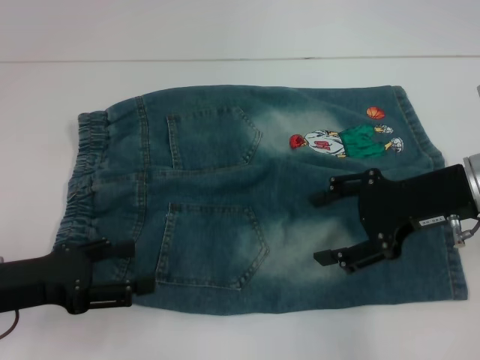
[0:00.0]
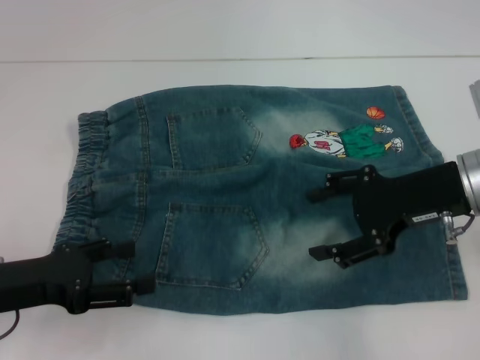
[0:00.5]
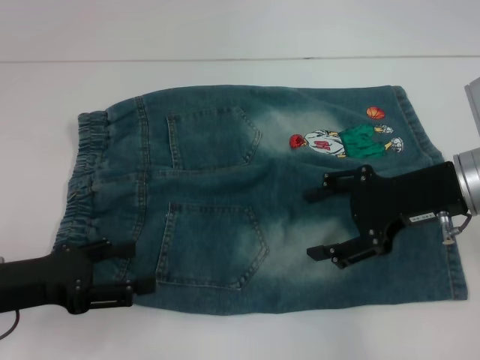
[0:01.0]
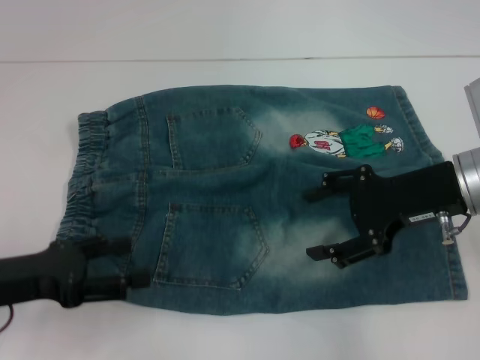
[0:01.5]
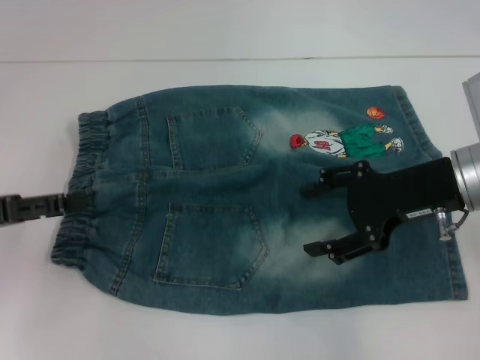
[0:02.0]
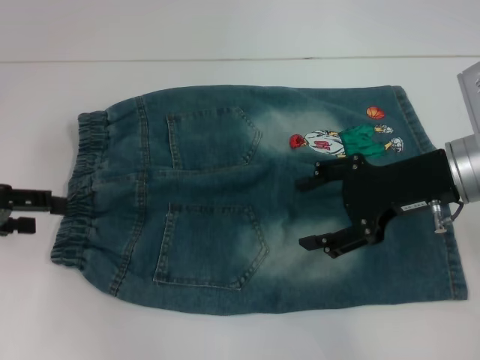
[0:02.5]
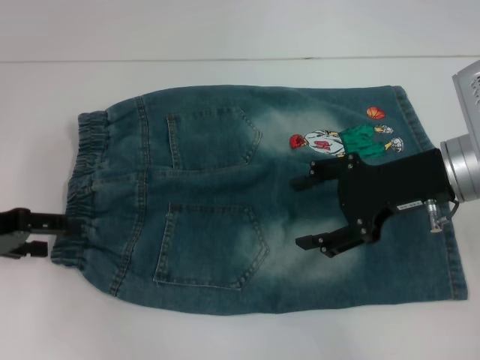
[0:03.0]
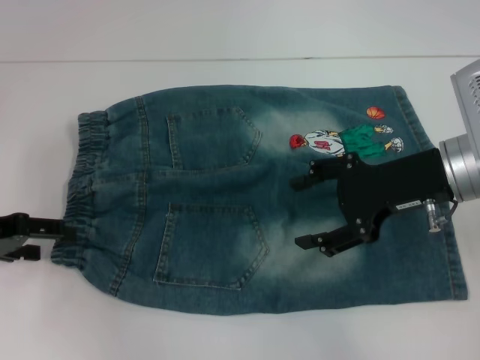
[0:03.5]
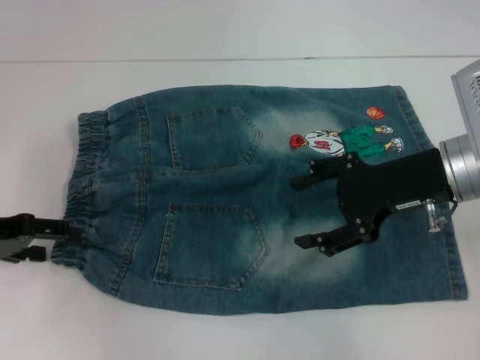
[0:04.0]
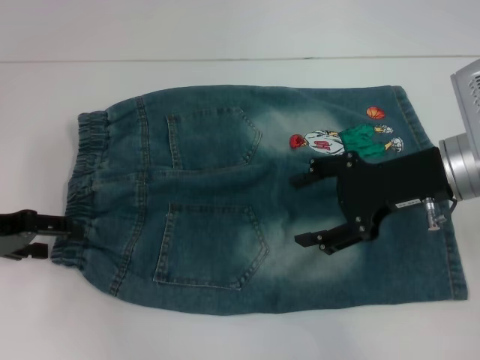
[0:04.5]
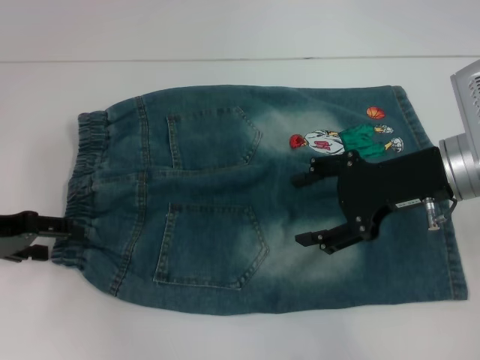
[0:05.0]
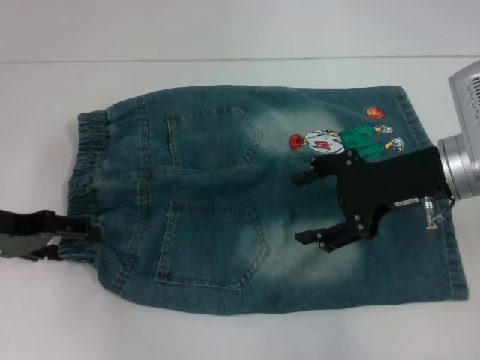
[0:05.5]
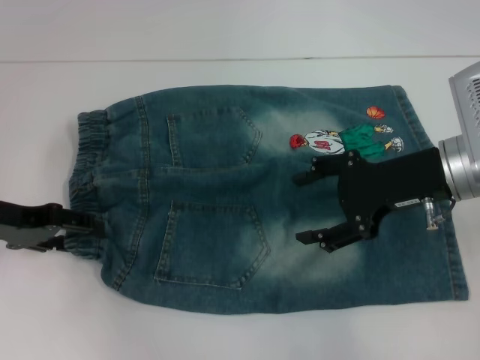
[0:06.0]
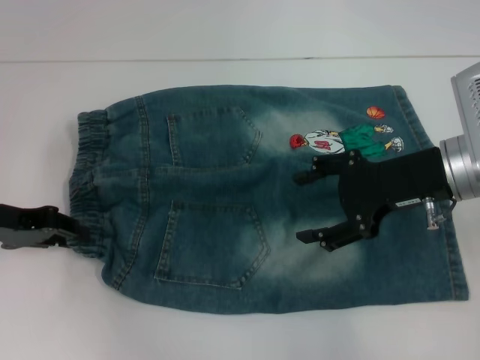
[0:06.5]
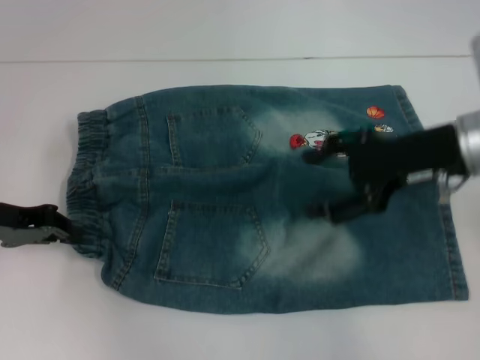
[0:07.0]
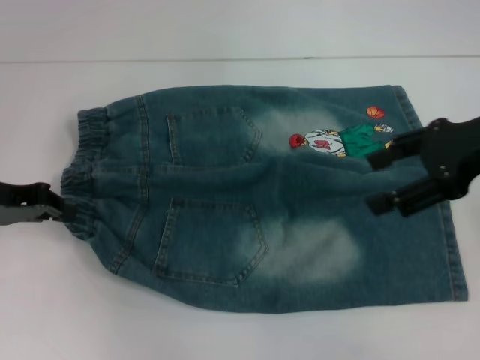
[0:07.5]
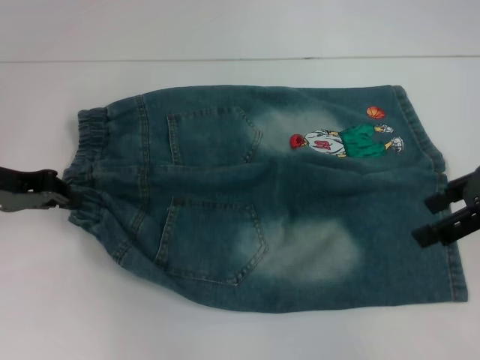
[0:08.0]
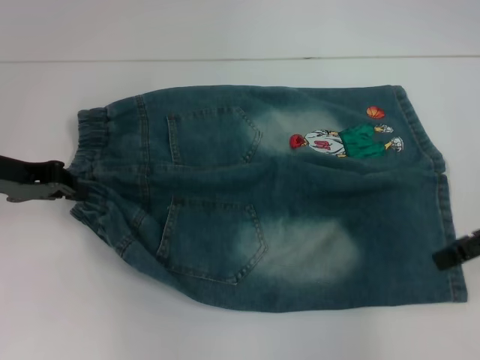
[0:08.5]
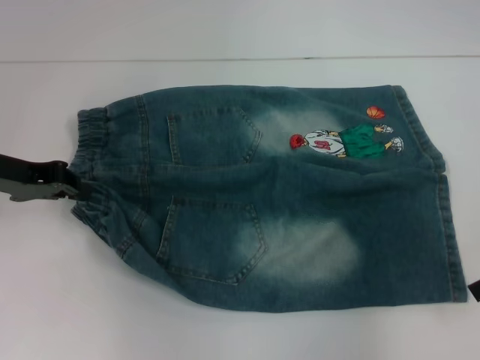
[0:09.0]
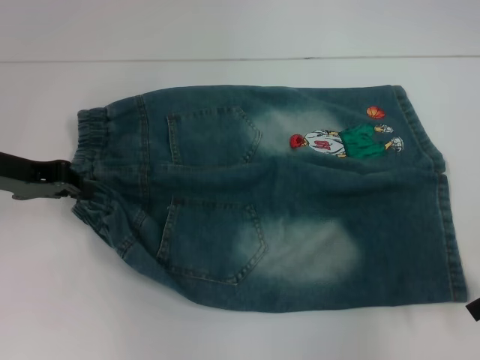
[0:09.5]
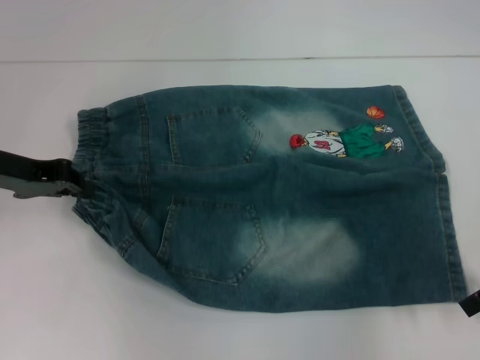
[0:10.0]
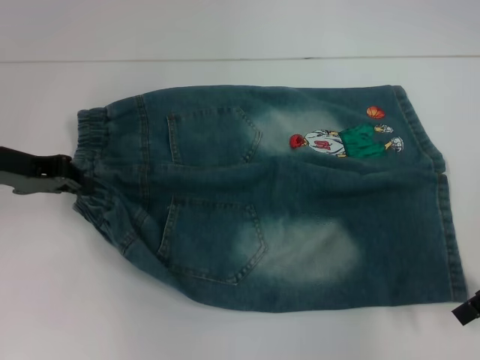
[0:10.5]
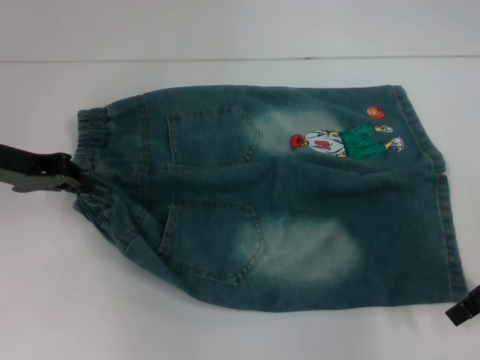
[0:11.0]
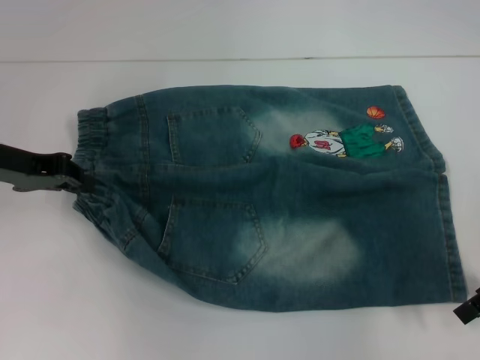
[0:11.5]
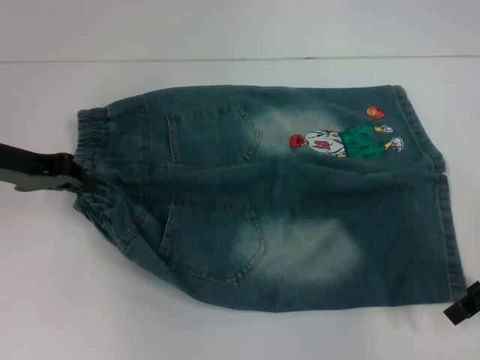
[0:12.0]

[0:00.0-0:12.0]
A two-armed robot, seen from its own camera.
Step, 0:00.0 to 0:07.0: Hold the lower left waistband with your left hand.
0:00.0 to 0:02.0: The left gripper goes approximately 5 cm to the left.
0:04.0 to 0:06.0: The grippers make only small movements.
0:06.0 to 0:08.0: The right gripper is displaced to the right and upward by roughly 10 cm. Meanwhile the left gripper closes up.
0:08.0 to 0:10.0: The right gripper goes approximately 5 cm downward.
0:10.0 to 0:12.0: The grippers move only a little.

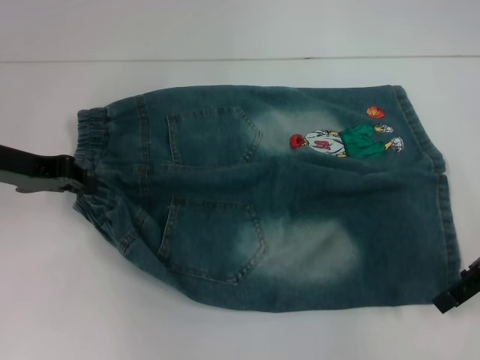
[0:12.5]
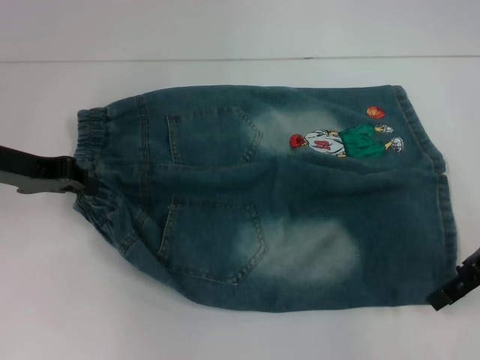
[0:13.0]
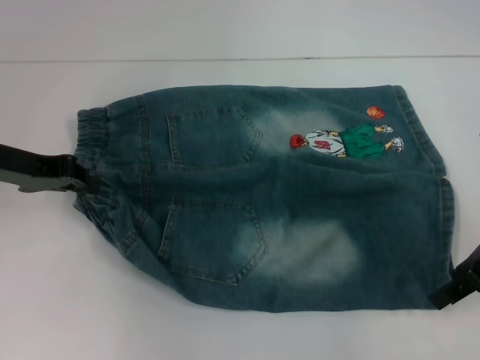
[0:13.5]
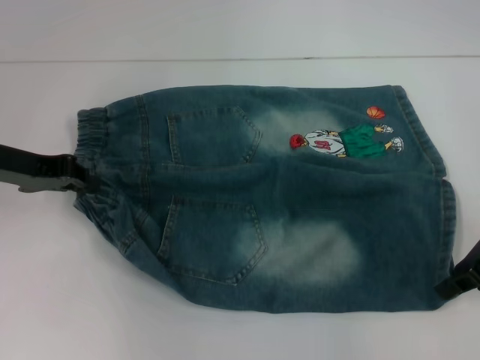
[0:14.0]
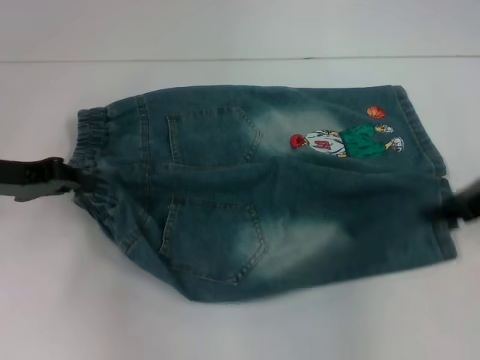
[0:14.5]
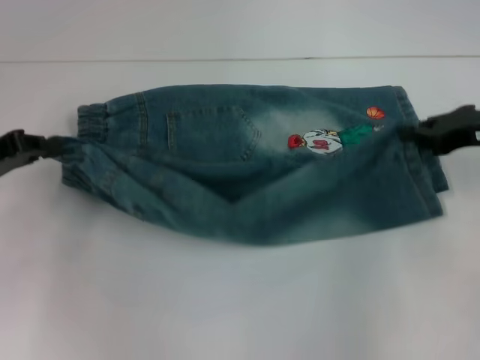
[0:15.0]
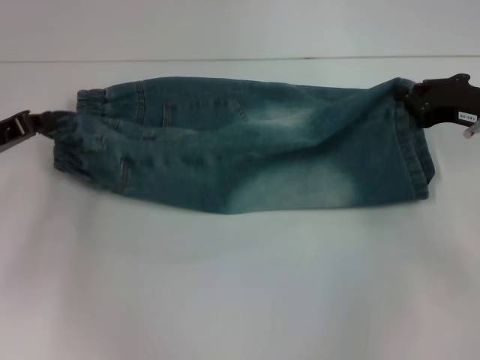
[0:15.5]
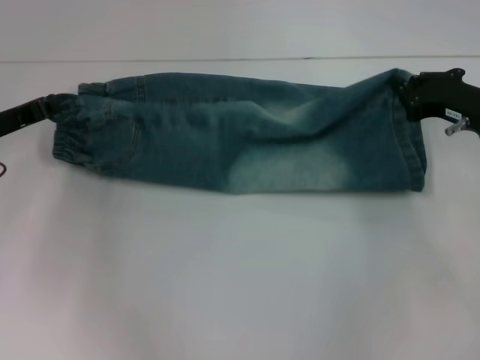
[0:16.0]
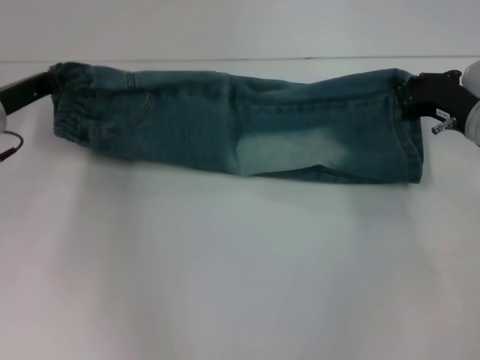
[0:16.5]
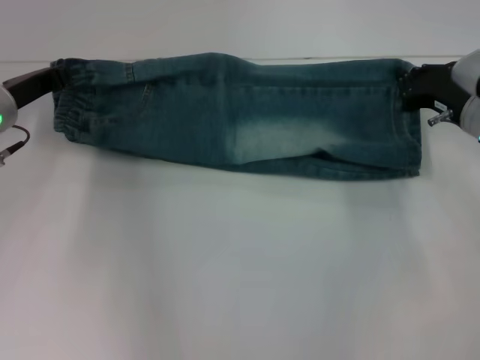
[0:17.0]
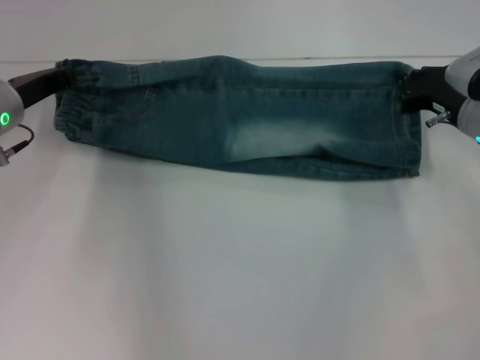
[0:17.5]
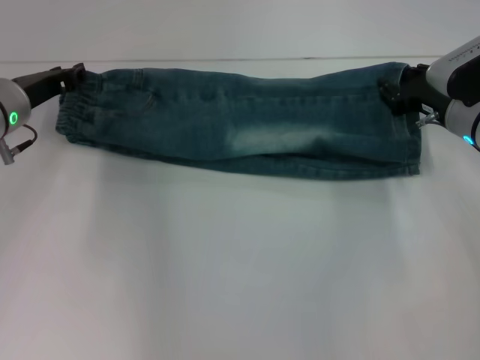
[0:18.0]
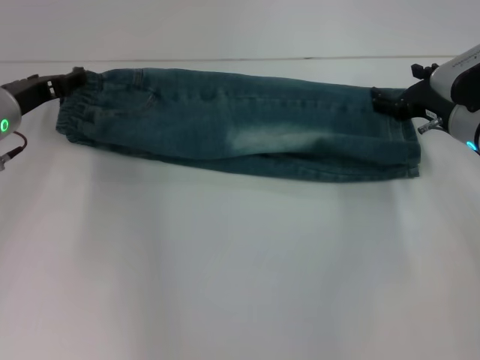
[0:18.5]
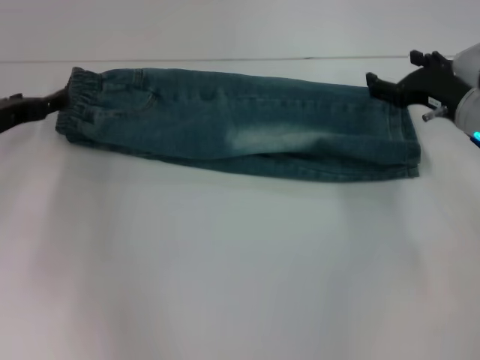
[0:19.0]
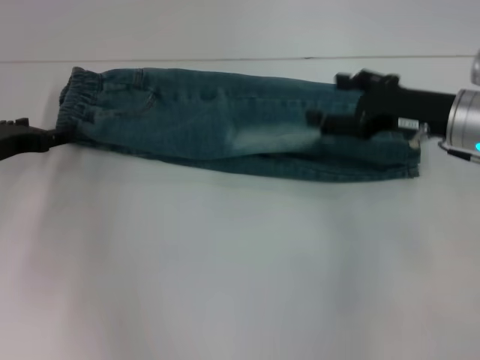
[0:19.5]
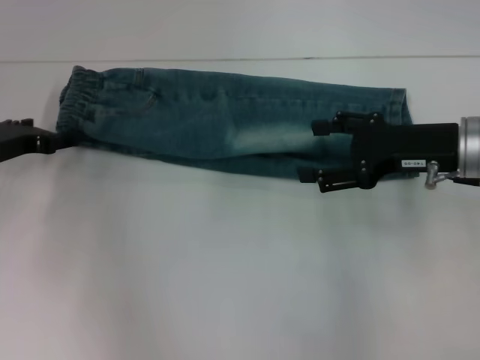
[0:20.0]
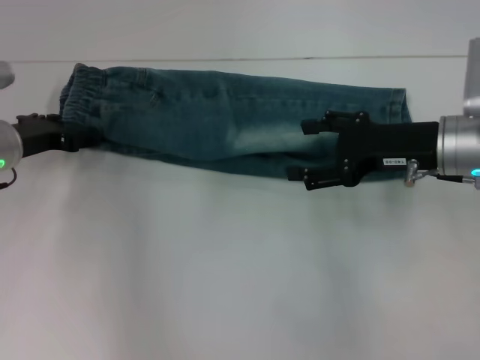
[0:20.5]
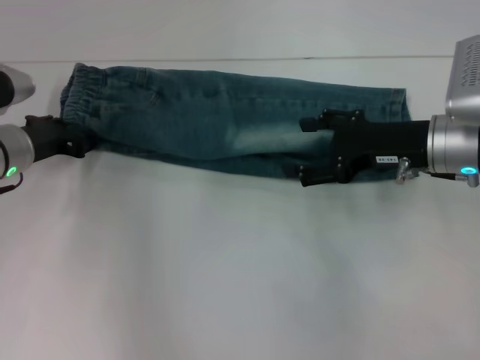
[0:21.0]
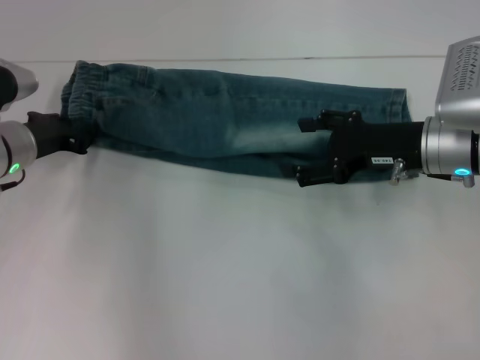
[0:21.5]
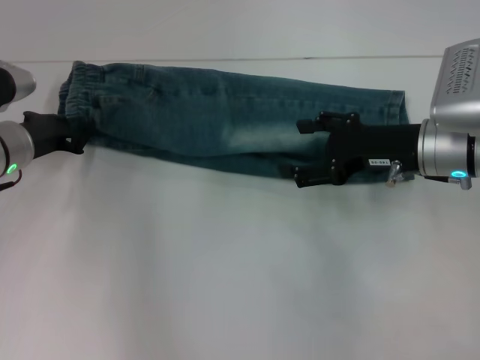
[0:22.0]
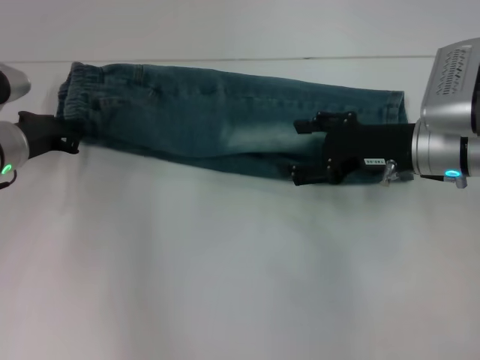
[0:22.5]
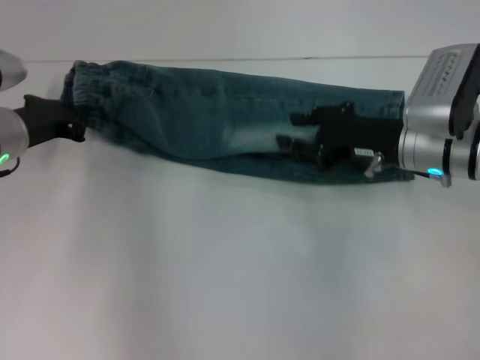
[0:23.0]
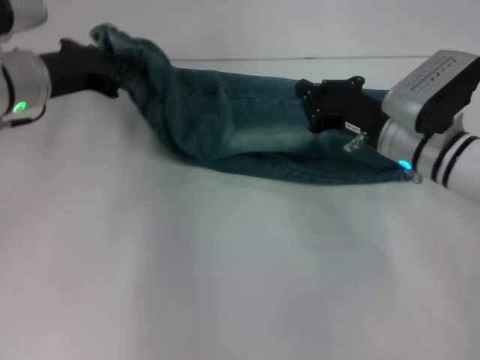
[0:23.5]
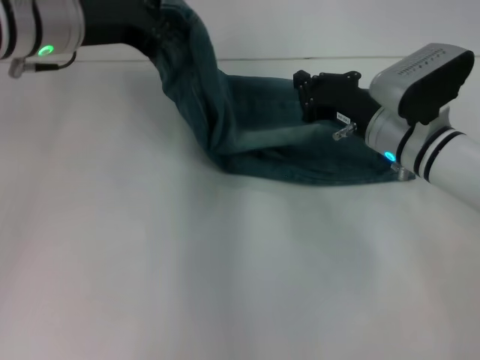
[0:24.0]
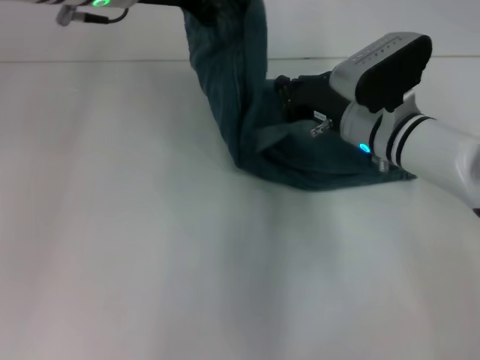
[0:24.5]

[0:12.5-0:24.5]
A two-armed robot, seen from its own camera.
Step, 0:14.5 to 0:17.5: Fold upward with your left hand.
Step, 0:18.5 to 0:22.5: Grab the waistband with your right hand.
0:12.5 to 0:14.5: The right gripper closes its fingers.
0:14.5 to 0:16.5: The right gripper goes approximately 5 cm downward, while the left gripper ends up about 5 cm from where it was.
0:16.5 to 0:18.5: The right gripper opens. Meanwhile the left gripper opens its fingers.
0:18.5 to 0:20.5: The right gripper goes about 5 cm upward.
0:20.5 to 0:22.5: The left gripper closes up.
0:22.5 to 0:24.5: The right gripper is displaced to the left by approximately 5 cm, and closes up. Meanwhile the left gripper heads upward and to the right, covering some 25 cm.

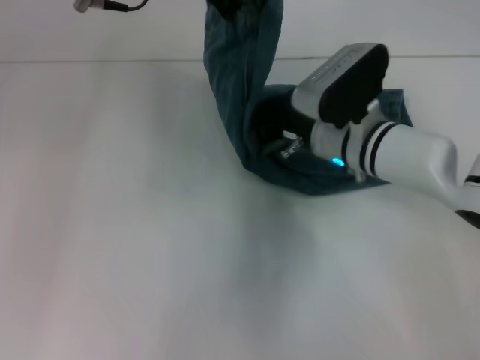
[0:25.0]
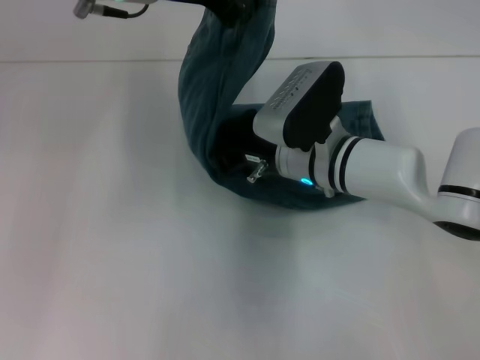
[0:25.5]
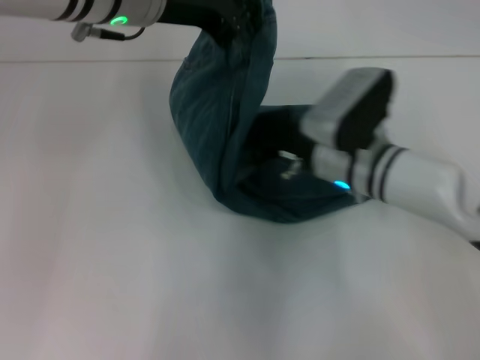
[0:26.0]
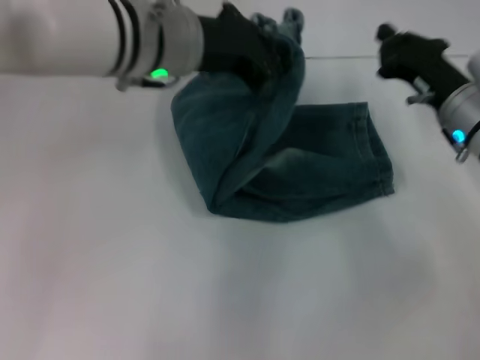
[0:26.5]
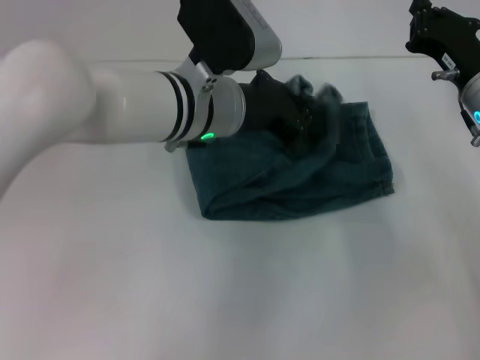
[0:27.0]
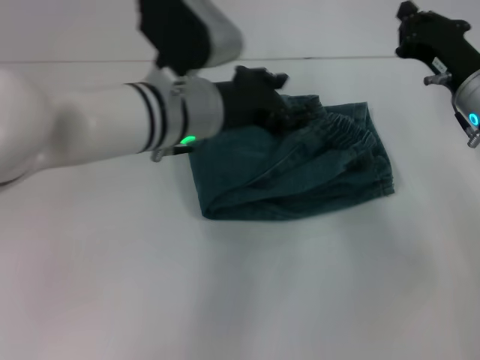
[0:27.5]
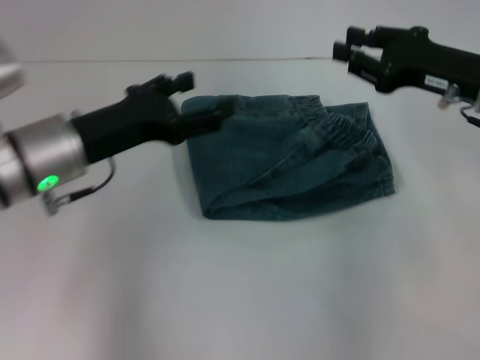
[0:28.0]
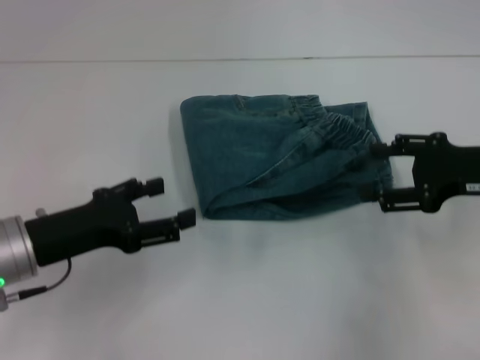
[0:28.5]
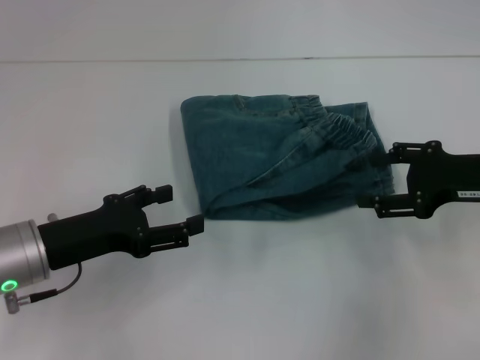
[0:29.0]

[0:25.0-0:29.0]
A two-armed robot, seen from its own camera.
Step, 0:26.5 to 0:27.0: Fold to the left with your right hand.
0:25.0 to 0:27.0: The left gripper moves downward and to the right, approximately 15 cm, while the right gripper is displaced to the right by some 15 cm.
0:27.0 to 0:29.0: The left gripper goes some 25 cm to the left, backward and downward, and opens its fingers, while the right gripper heads backward, covering roughly 5 cm, and opens its fingers.
